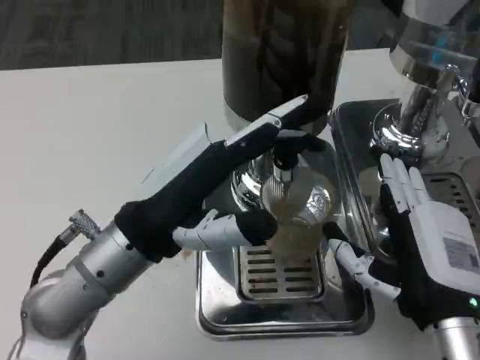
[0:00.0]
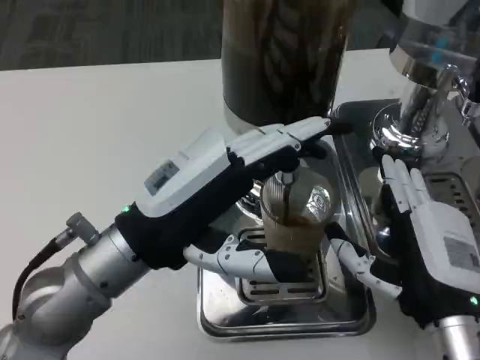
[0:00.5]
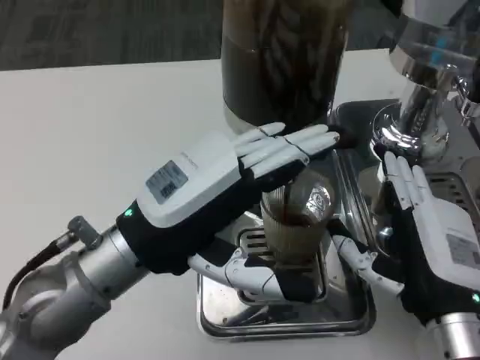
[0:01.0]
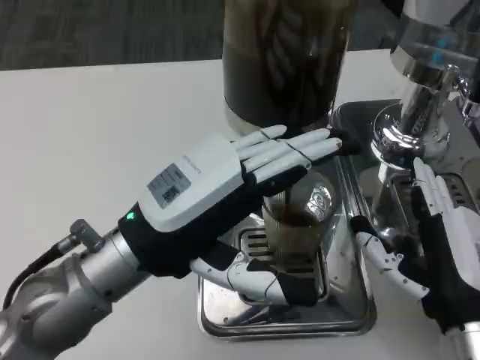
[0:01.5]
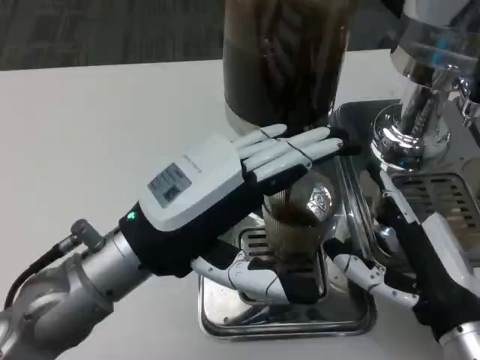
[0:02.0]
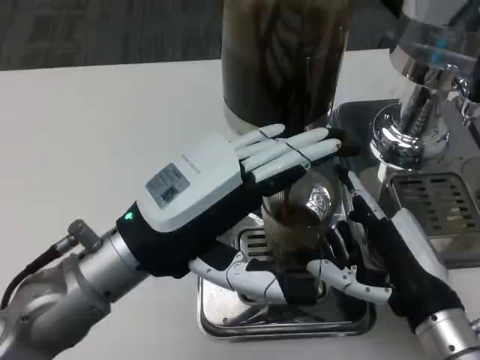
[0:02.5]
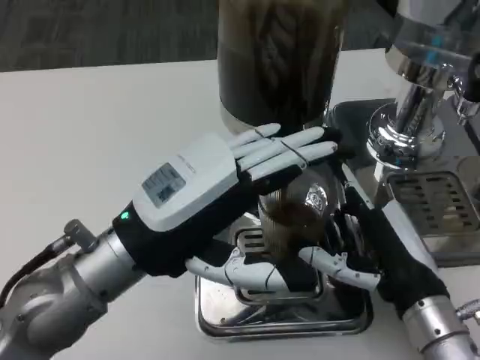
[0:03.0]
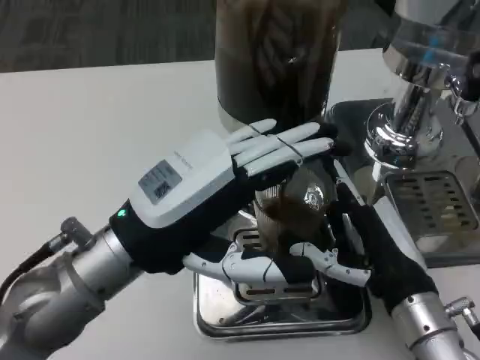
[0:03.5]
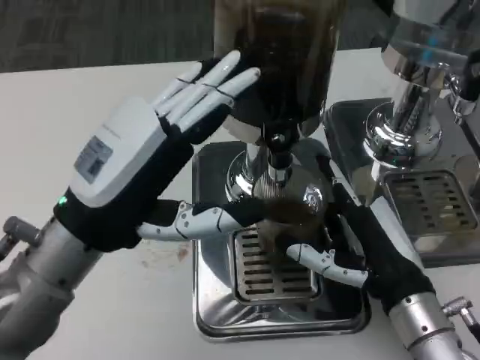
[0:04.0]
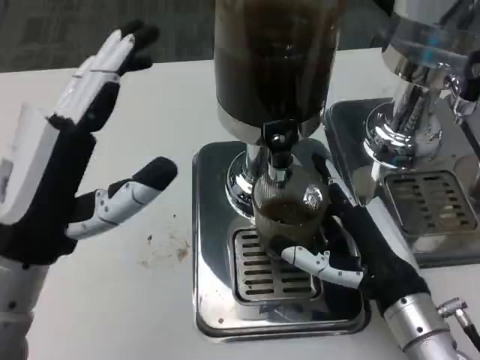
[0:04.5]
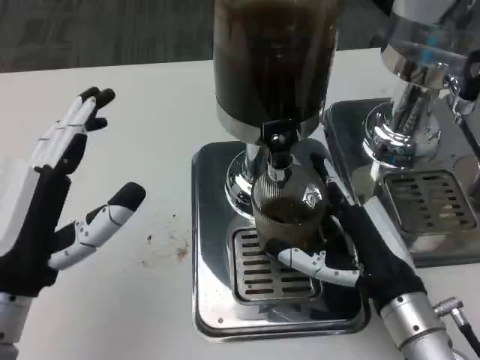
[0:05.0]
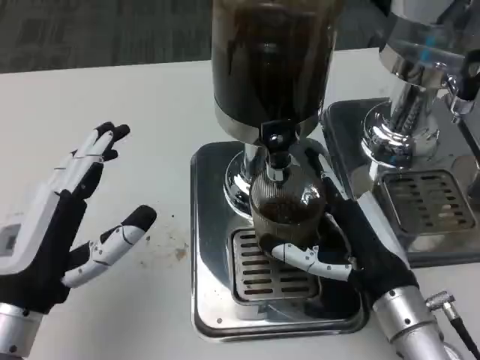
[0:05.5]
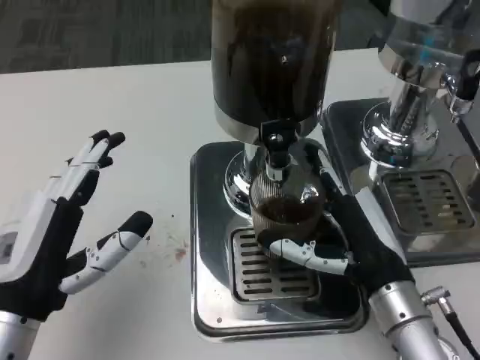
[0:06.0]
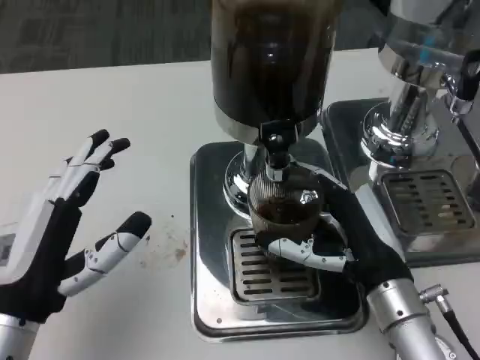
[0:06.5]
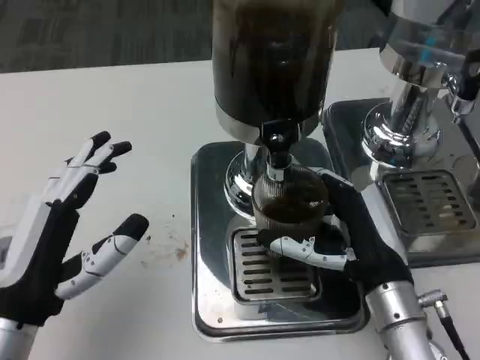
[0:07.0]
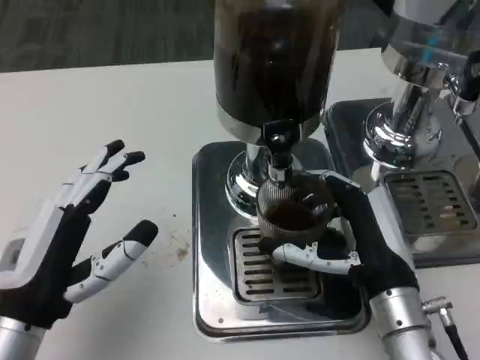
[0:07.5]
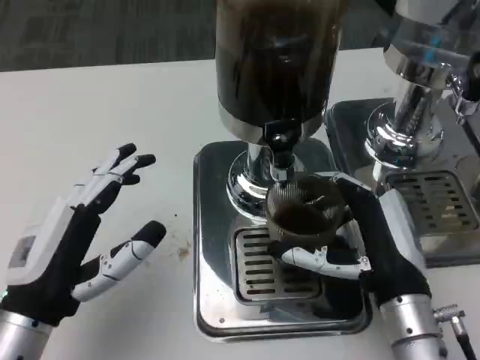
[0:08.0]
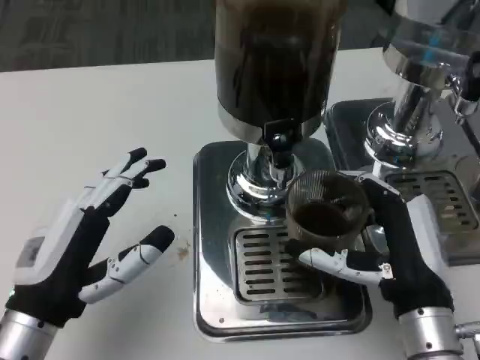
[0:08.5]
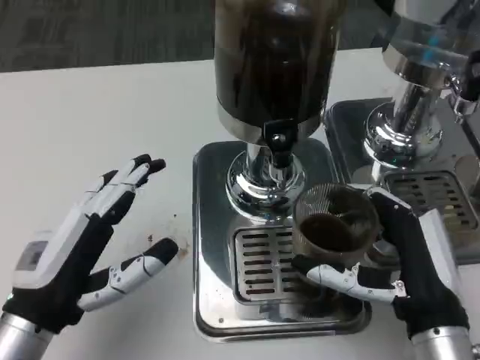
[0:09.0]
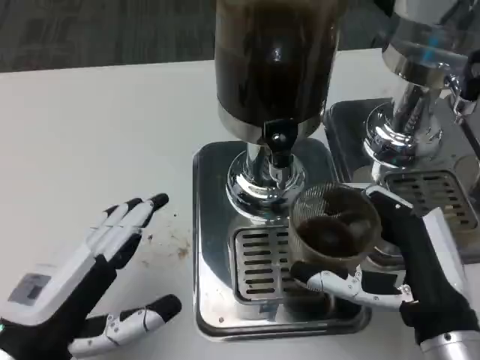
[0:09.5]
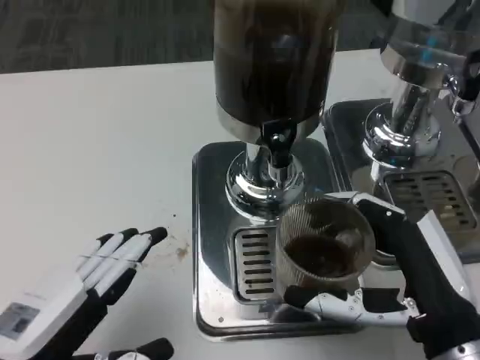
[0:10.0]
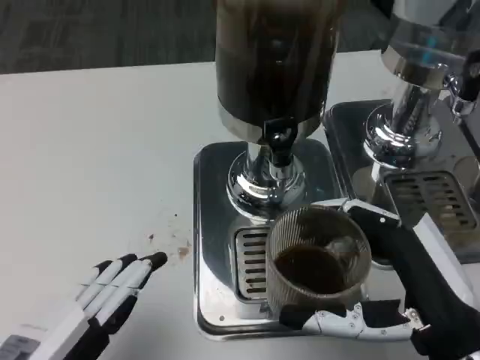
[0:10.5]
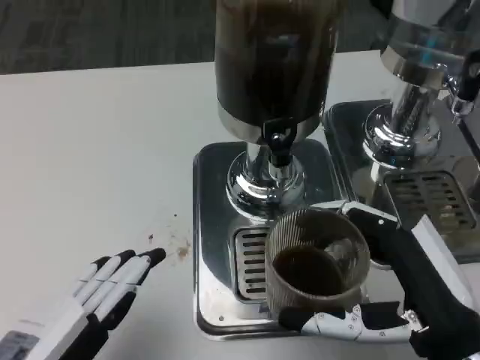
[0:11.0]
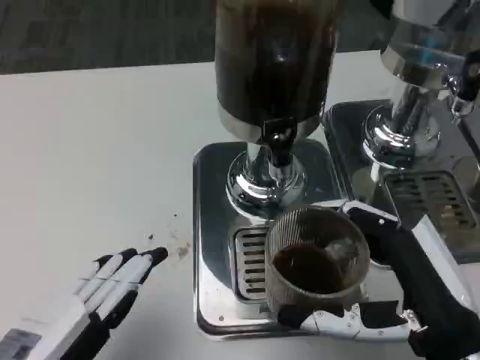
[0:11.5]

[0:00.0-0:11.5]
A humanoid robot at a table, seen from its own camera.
Task of the whole recording: Grasp the cup under the faucet to collect the drink, then remove the cup.
0:04.0 to 0:06.0: The left hand moves downward, about 10 cm.
0:07.5 to 0:09.5: The right hand goes roughly 5 cm backward.
0:09.5 to 0:11.5: The left hand changes place by about 5 cm.

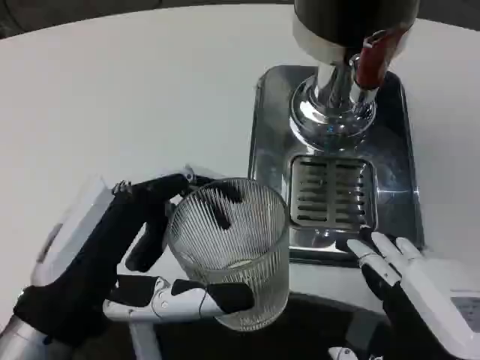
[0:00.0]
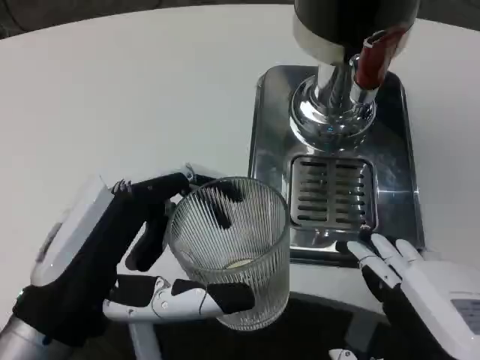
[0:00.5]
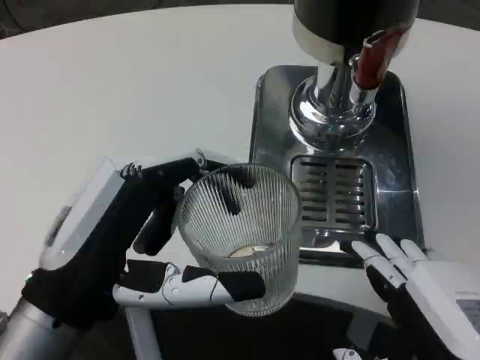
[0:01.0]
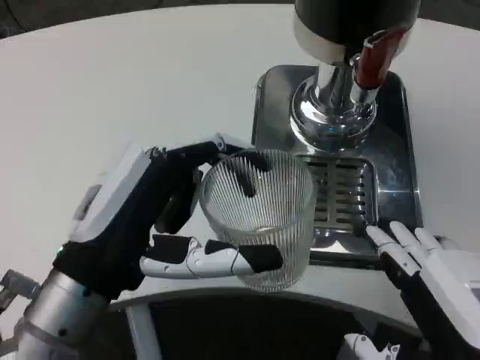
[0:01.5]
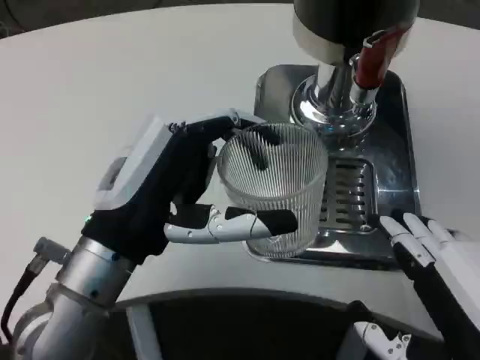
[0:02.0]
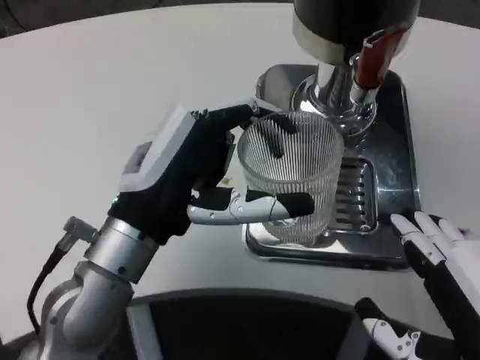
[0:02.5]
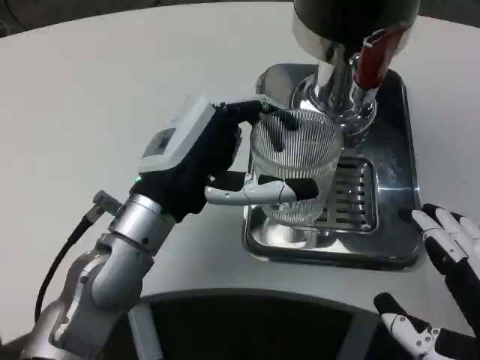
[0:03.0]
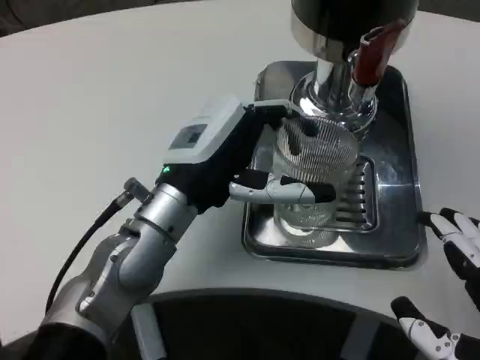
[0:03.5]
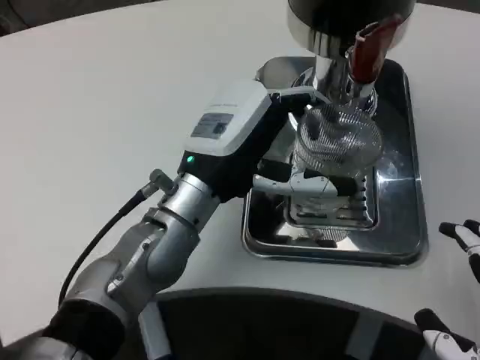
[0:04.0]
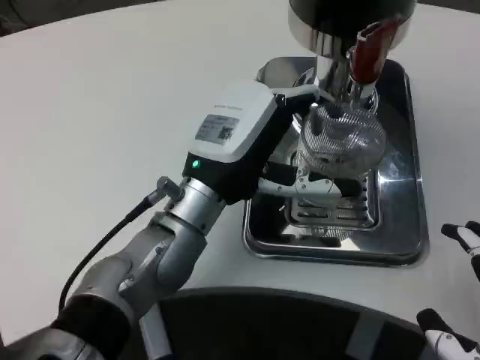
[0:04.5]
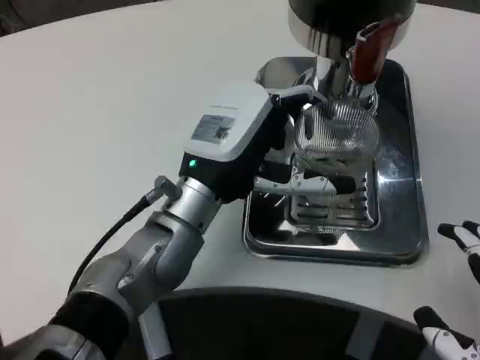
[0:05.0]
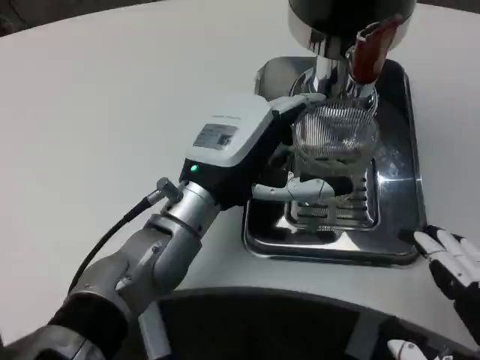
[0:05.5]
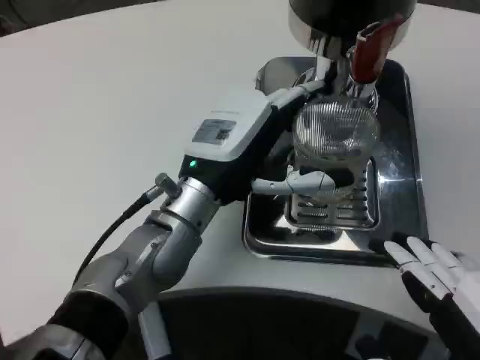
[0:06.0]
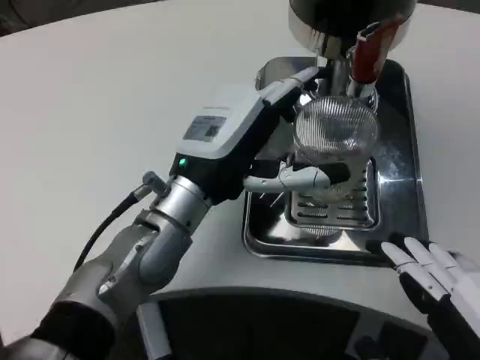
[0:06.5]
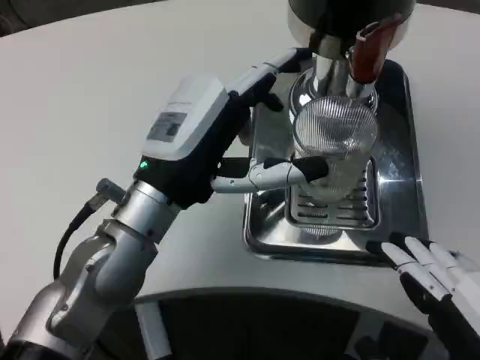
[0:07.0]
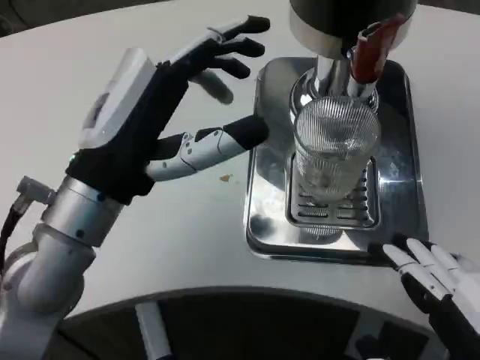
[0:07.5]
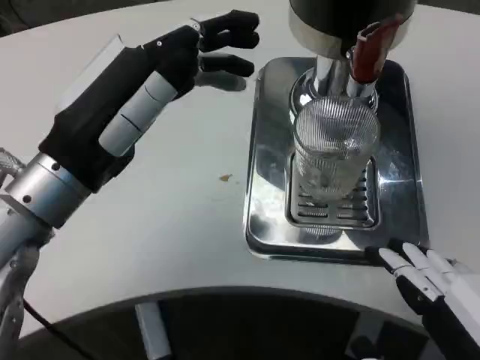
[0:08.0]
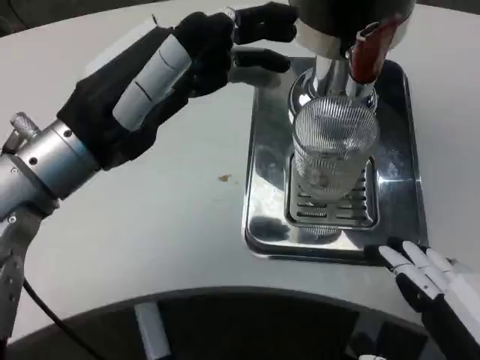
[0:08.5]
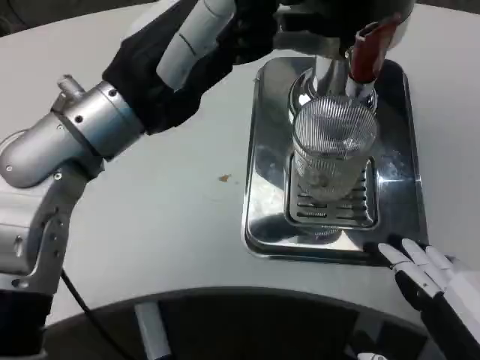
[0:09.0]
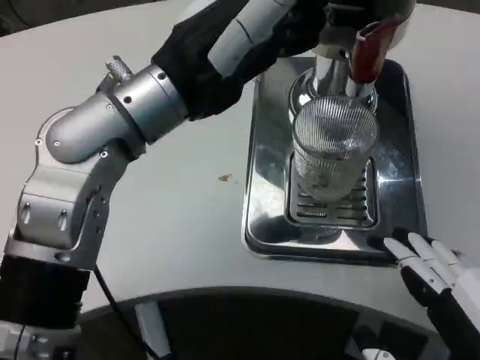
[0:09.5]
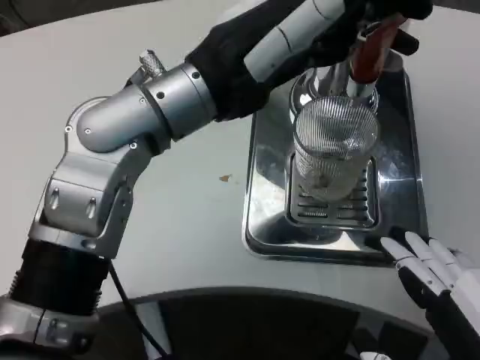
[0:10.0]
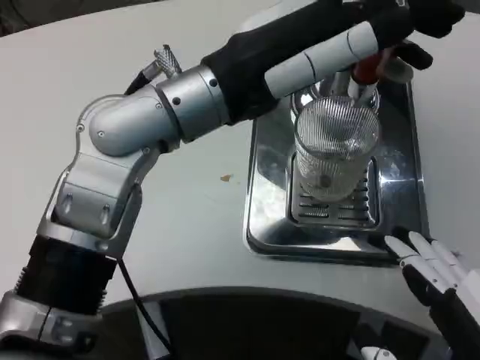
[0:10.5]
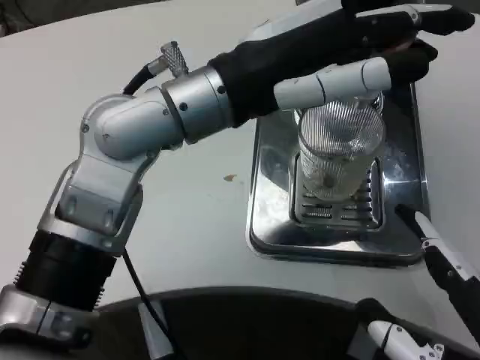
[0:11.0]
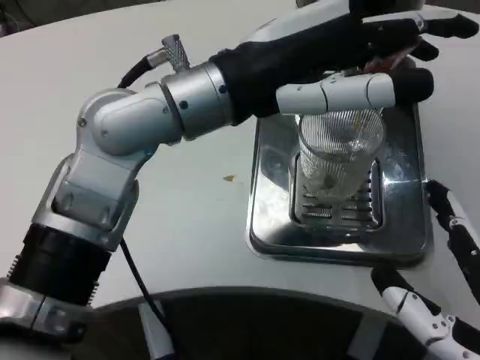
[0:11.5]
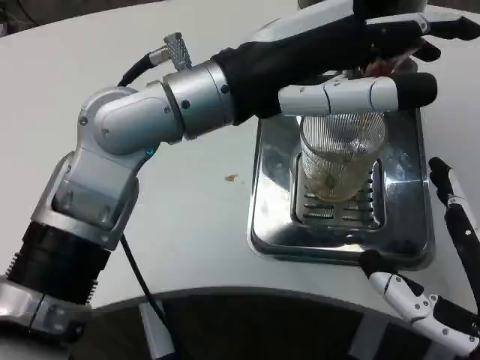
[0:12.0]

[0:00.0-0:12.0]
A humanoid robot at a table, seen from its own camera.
Task of the whole recording: Grasp the cup under the faucet to collect the drink, then remove the cup.
0:00.0 to 0:02.0: The left hand travels forward by some 5 cm.
0:02.0 to 0:04.0: The left hand goes about 10 cm forward and to the right.
0:04.0 to 0:06.0: The hands move only a little.
0:06.0 to 0:08.0: The left hand is displaced to the left, upward and backward by some 15 cm.
0:08.0 to 0:10.0: The left hand moves to the right and upward, roughly 10 cm.
0:10.0 to 0:12.0: The right hand travels forward by roughly 5 cm.

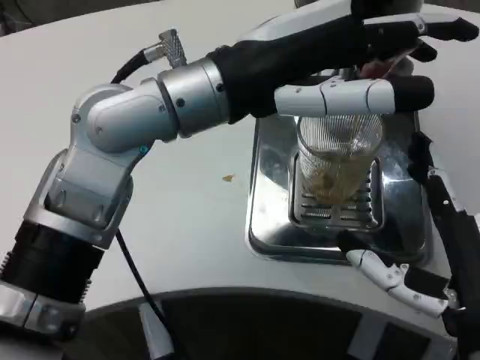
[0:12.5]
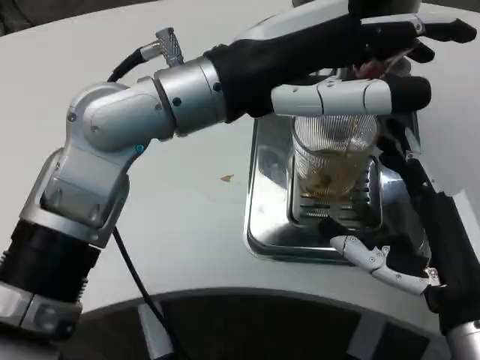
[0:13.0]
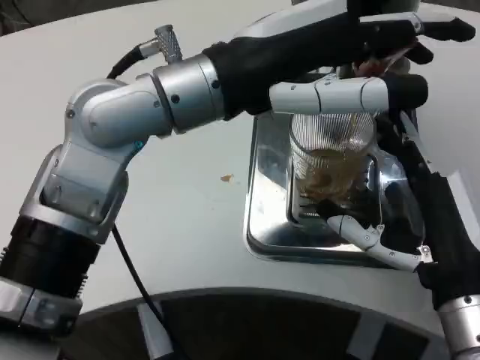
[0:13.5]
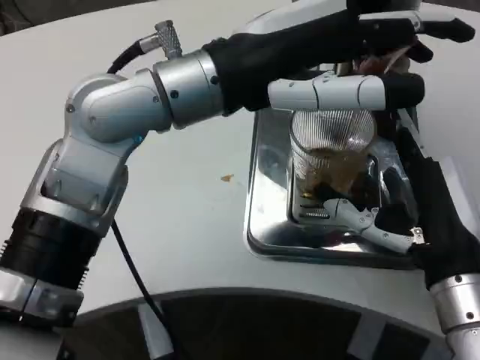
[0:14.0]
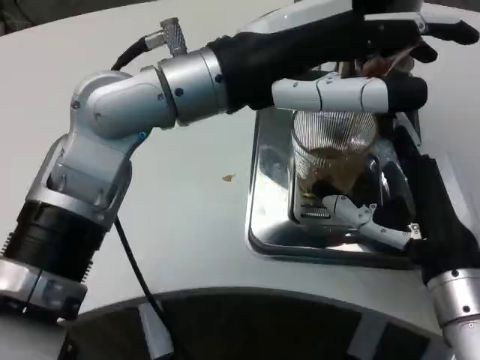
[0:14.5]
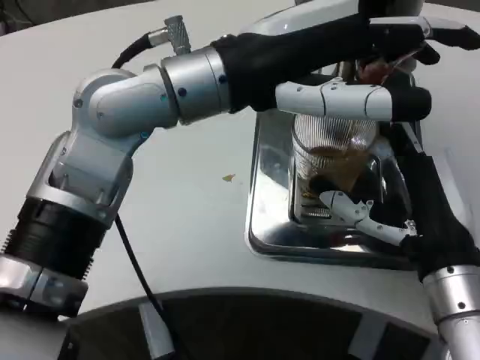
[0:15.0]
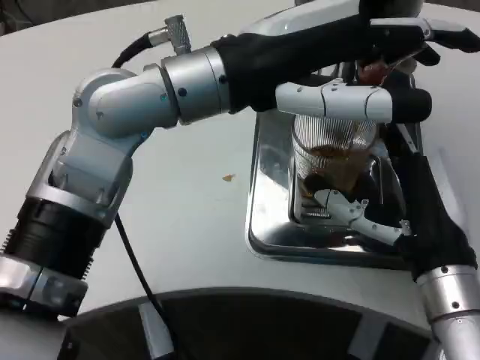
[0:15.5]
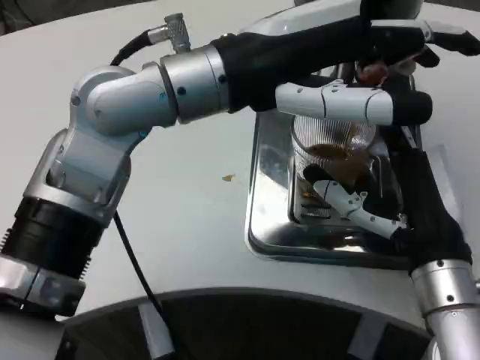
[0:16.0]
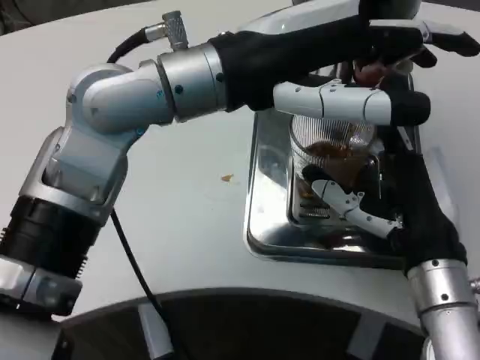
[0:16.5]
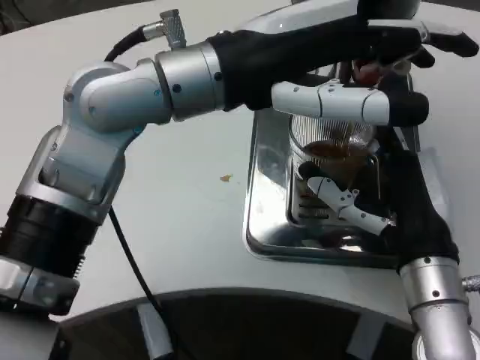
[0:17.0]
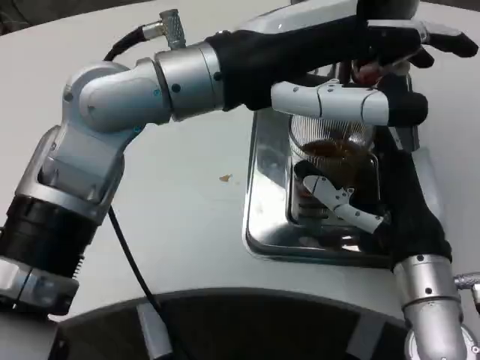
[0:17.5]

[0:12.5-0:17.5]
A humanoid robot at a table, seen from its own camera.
Task of the whole recording: Grasp the cup under the faucet to collect the drink, then remove the cup.
0:12.5 to 0:15.0: The right hand is displaced forward by roughly 5 cm.
